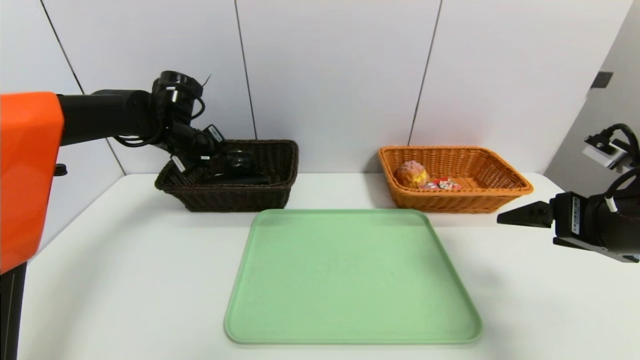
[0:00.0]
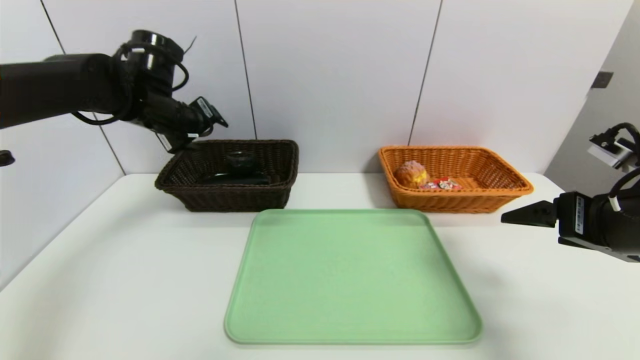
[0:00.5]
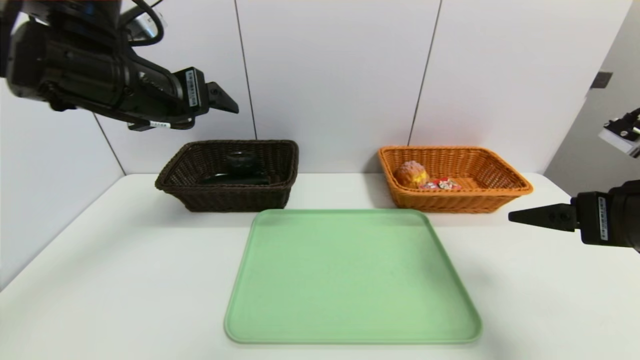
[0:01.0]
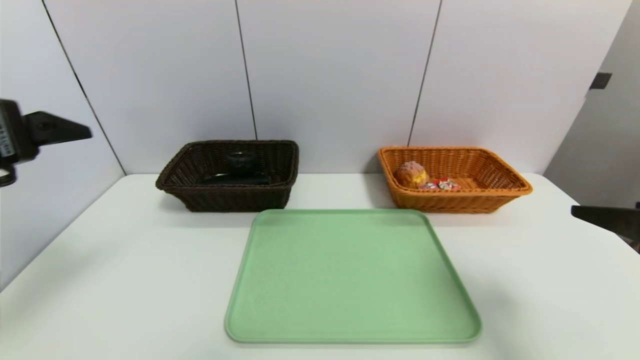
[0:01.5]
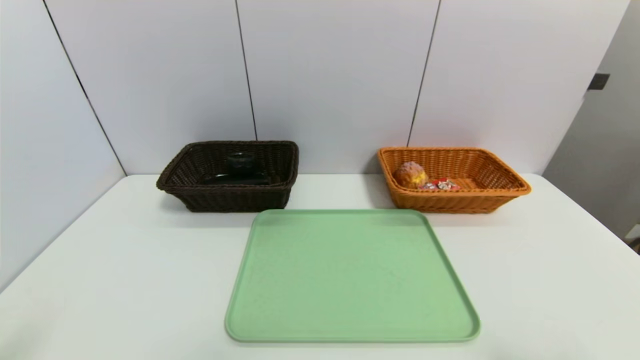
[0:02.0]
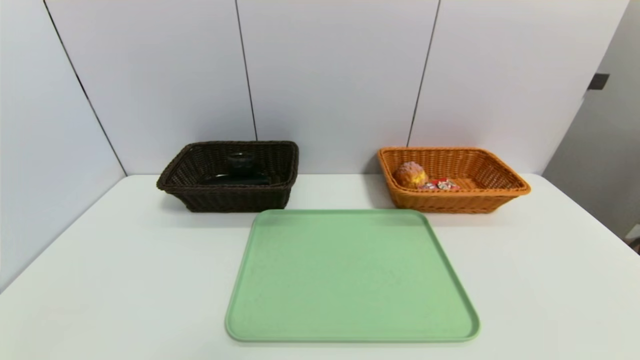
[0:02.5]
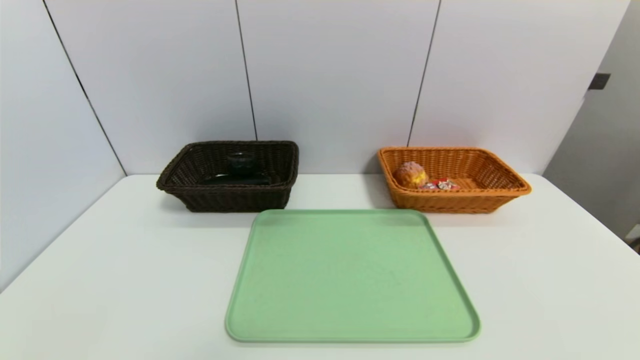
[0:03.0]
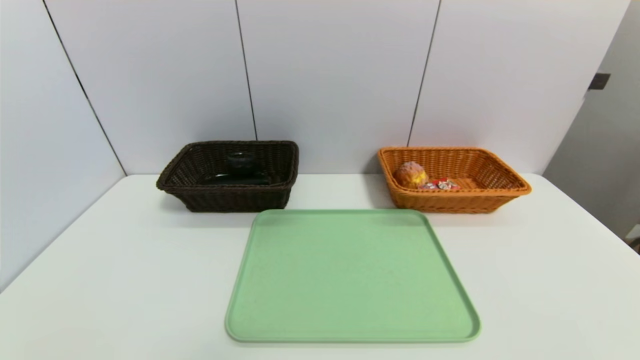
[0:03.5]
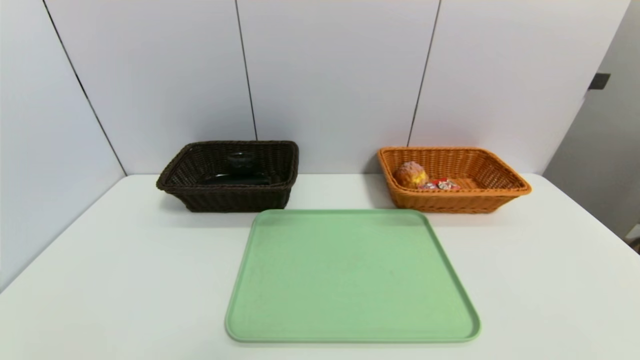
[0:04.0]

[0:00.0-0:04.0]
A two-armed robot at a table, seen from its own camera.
Task of the whole recording: place the food in the right basket with the right gripper, and place the non food items in the left basket with the left gripper.
0:00.0 to 0:02.0: The right gripper heads backward, covering some 20 cm. The left gripper goes some 40 cm backward, and opens.

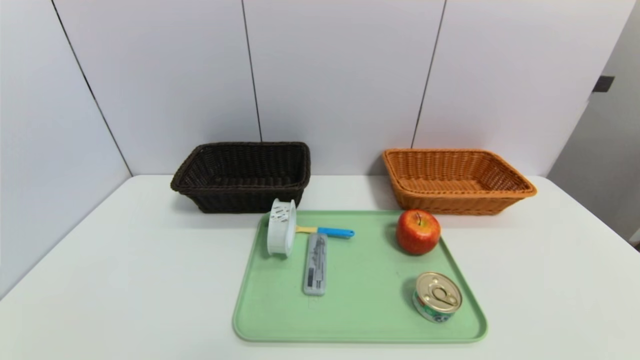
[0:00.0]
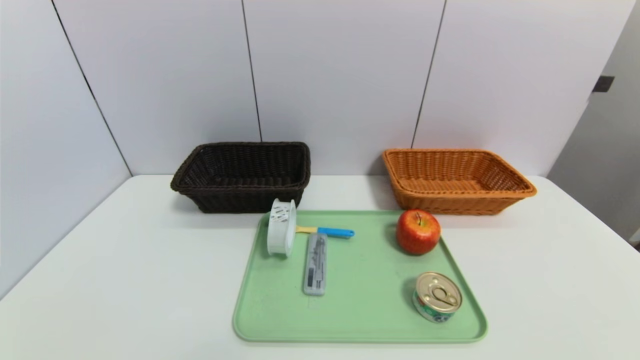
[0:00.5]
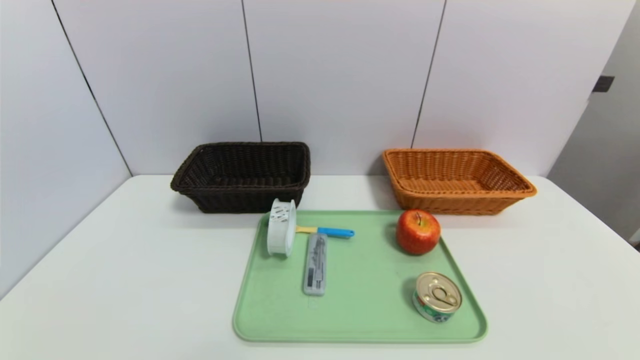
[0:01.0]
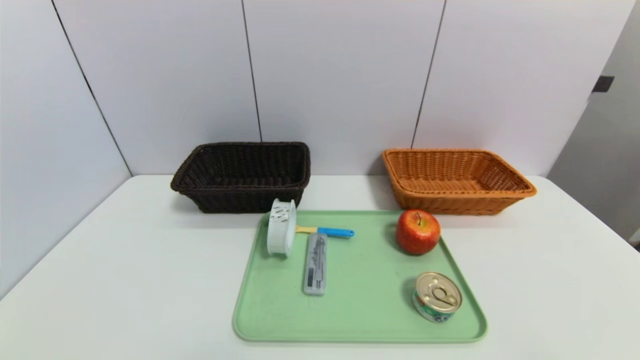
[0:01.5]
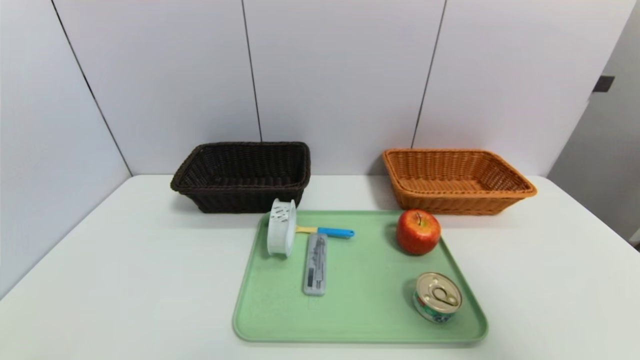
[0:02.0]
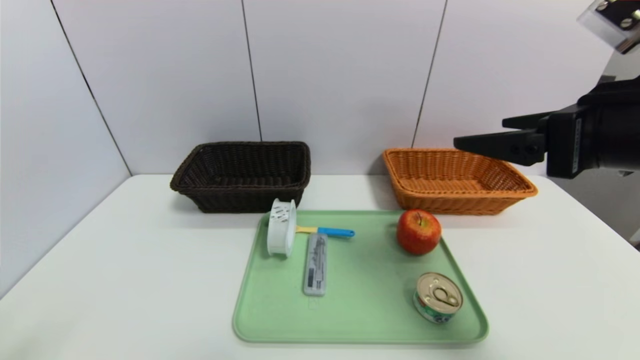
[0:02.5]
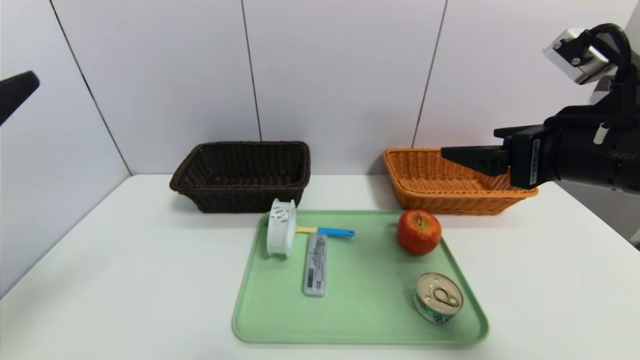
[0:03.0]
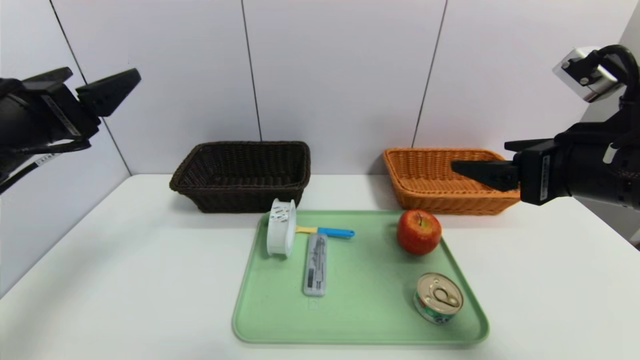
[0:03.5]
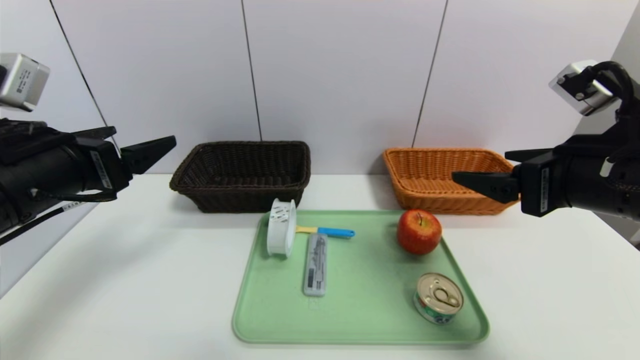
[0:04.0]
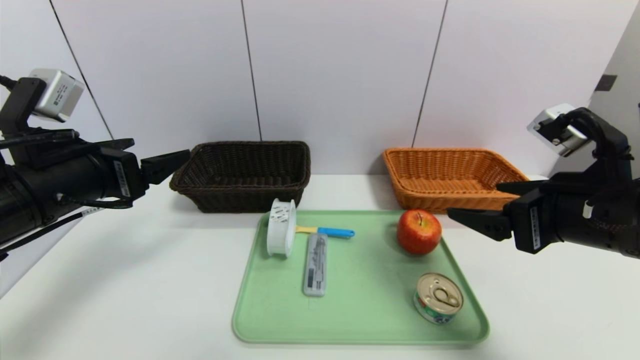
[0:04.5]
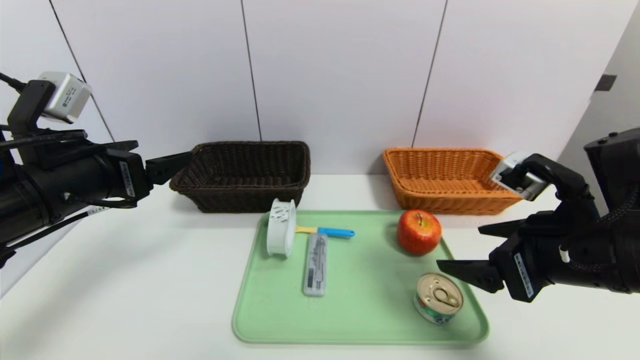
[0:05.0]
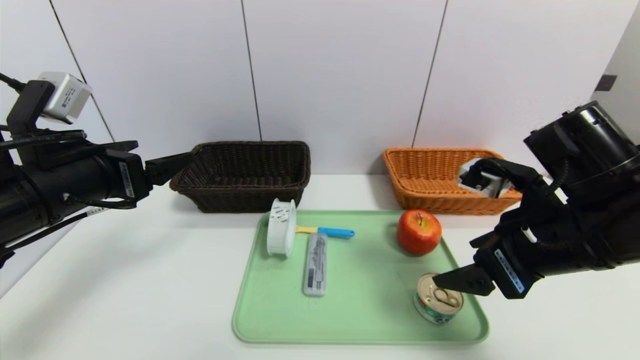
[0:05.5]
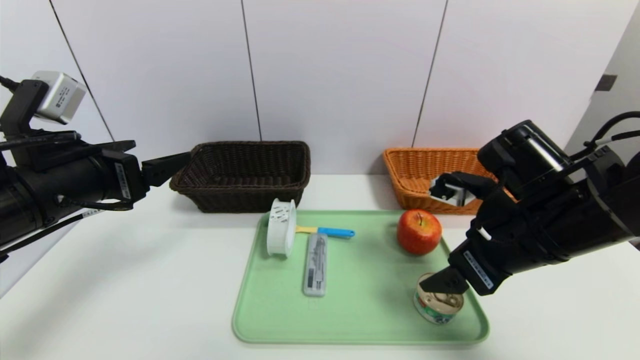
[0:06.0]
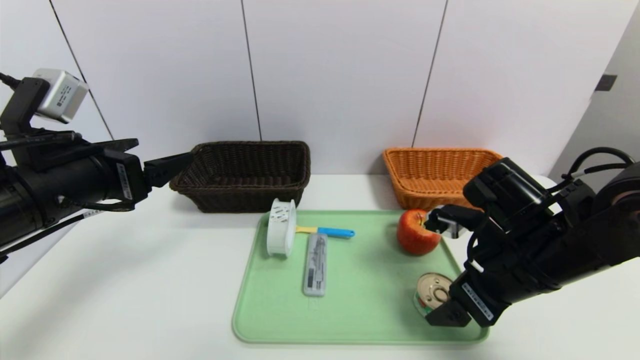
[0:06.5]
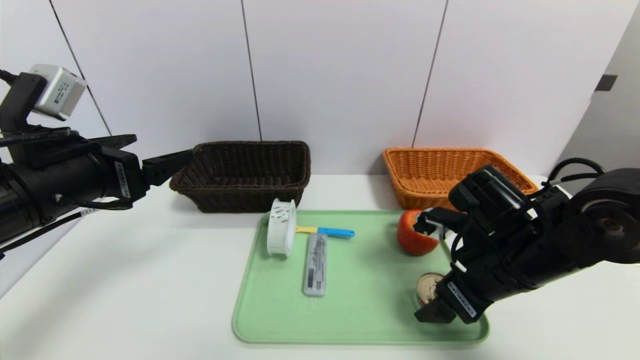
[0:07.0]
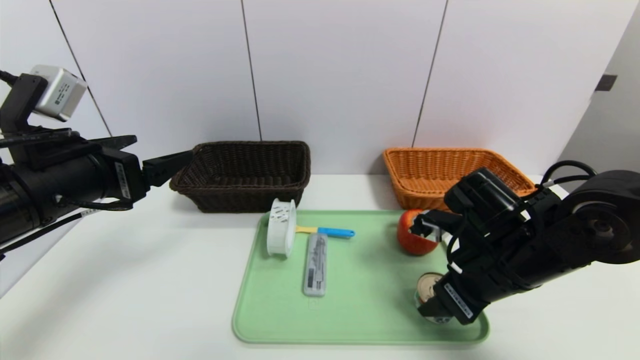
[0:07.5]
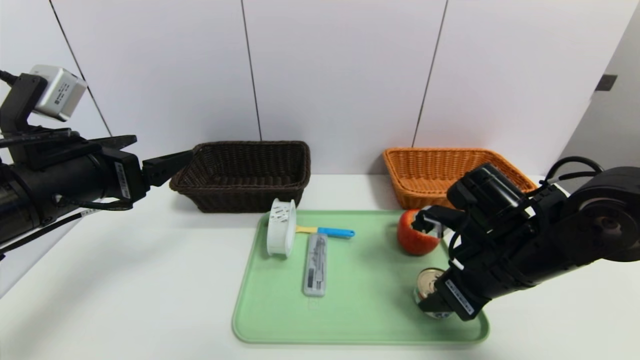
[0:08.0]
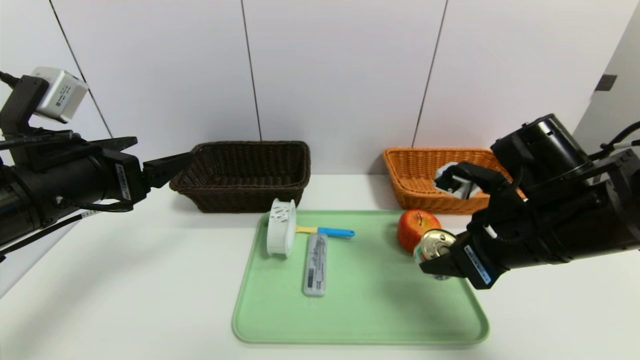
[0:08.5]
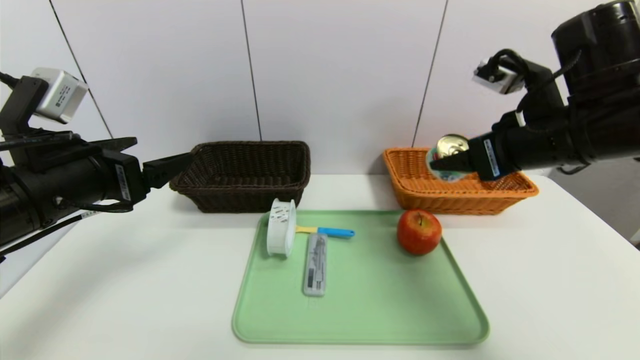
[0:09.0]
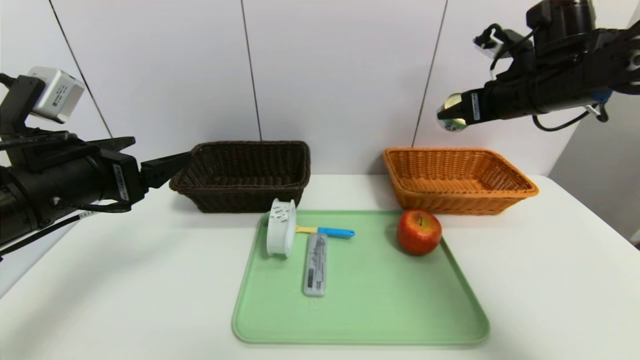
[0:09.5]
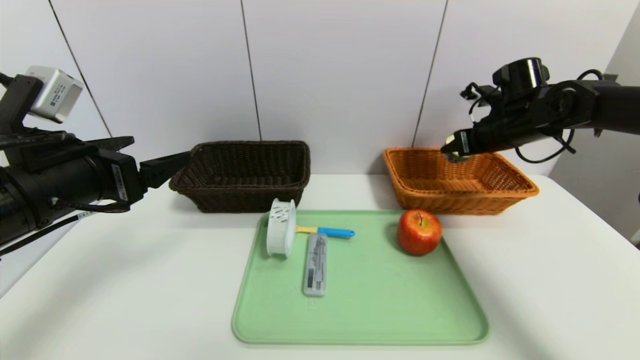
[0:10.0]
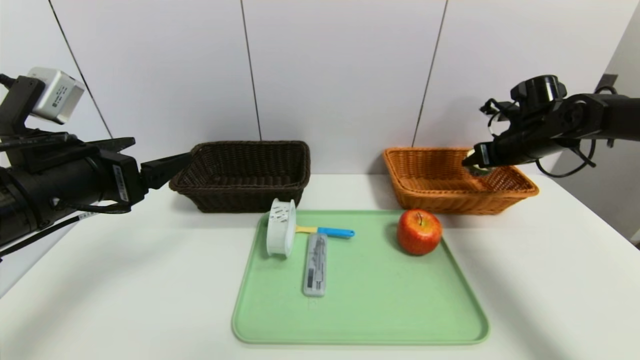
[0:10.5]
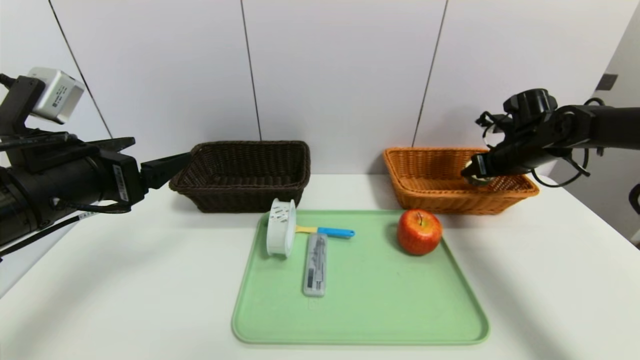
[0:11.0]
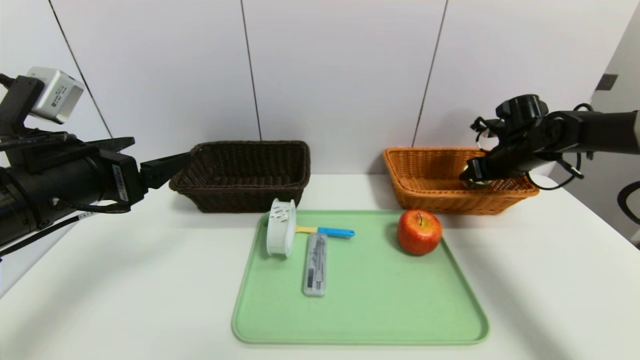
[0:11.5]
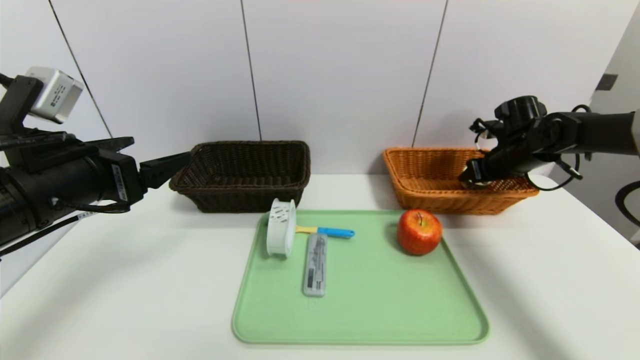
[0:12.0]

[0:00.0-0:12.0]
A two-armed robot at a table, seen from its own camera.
Task of the whole recording: place the food in the right basket with the right gripper, and place the non food items in the left basket with the left gripper.
0:00.0 to 0:02.0: The right gripper is displaced upward by some 25 cm.
0:02.0 to 0:04.0: The right gripper travels forward, to the left and downward by some 15 cm; the left gripper travels forward by roughly 20 cm.
0:04.0 to 0:06.0: The right gripper moves downward, about 5 cm.
0:06.0 to 0:08.0: The right gripper closes.
0:08.0 to 0:10.0: The right gripper goes about 20 cm forward and to the right.
0:10.0 to 0:12.0: The right gripper is displaced downward by some 5 cm.

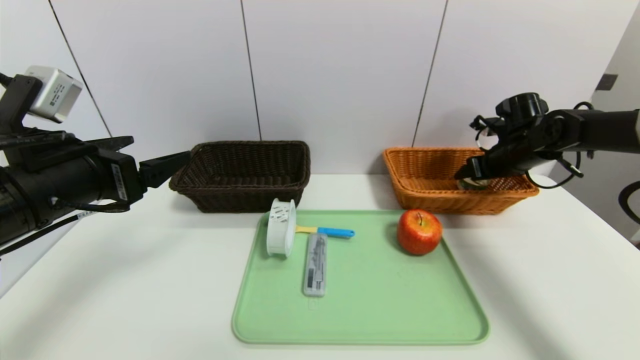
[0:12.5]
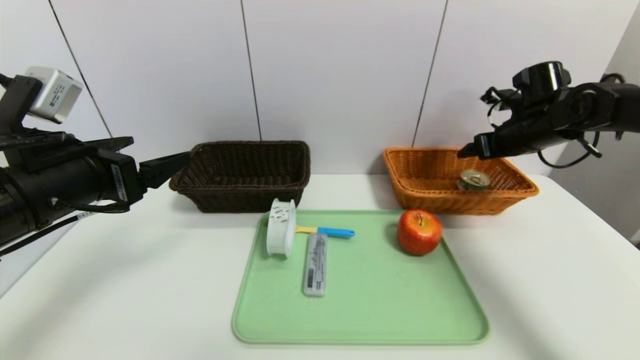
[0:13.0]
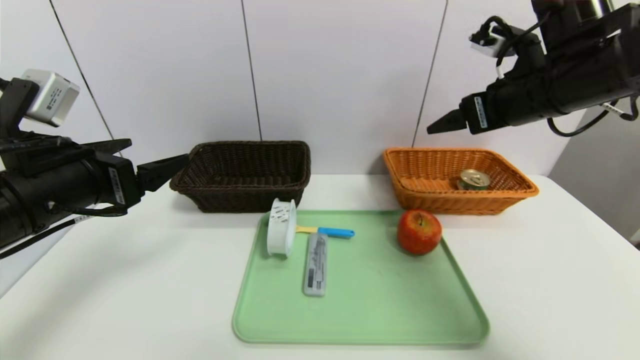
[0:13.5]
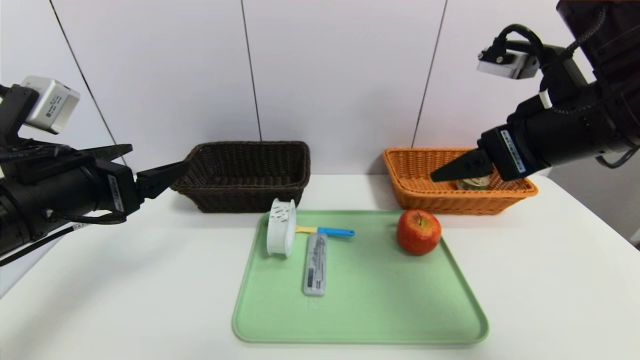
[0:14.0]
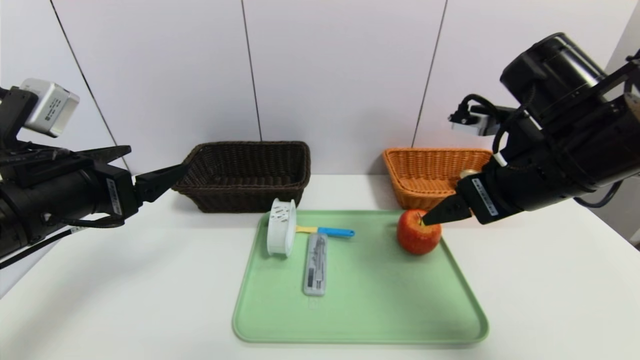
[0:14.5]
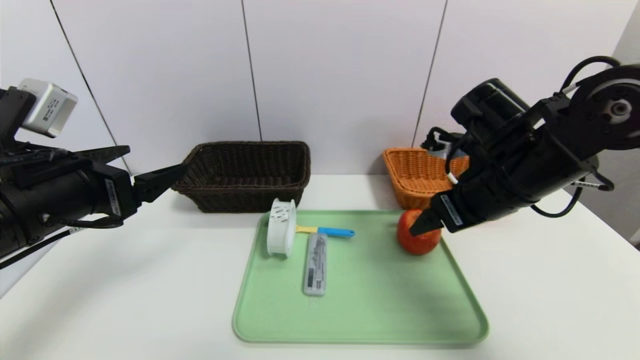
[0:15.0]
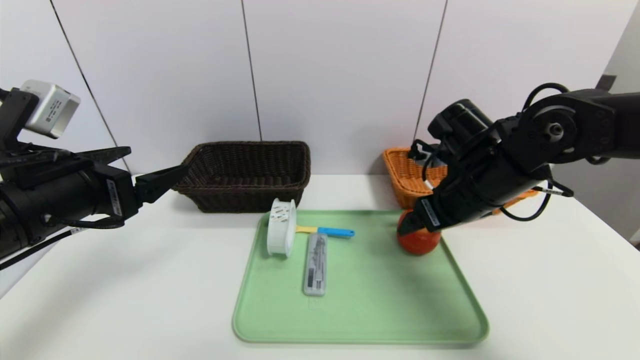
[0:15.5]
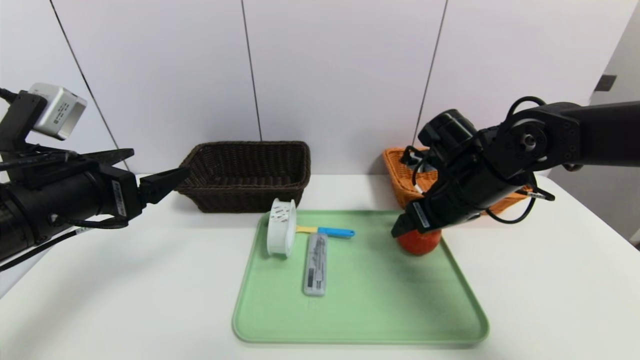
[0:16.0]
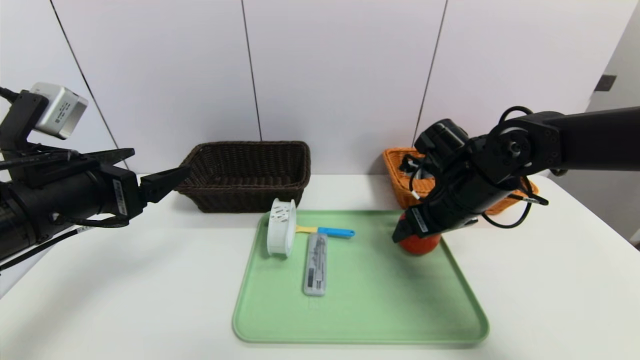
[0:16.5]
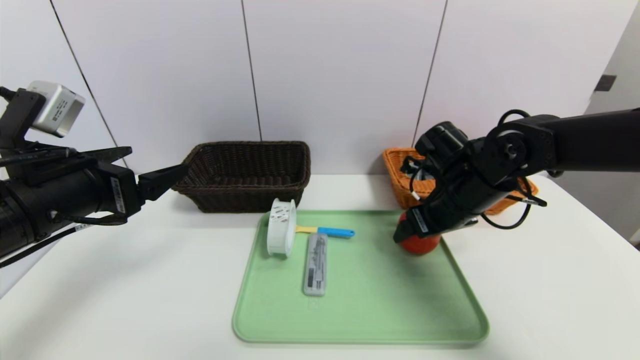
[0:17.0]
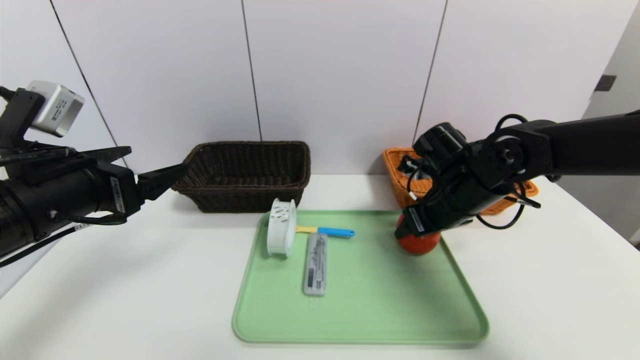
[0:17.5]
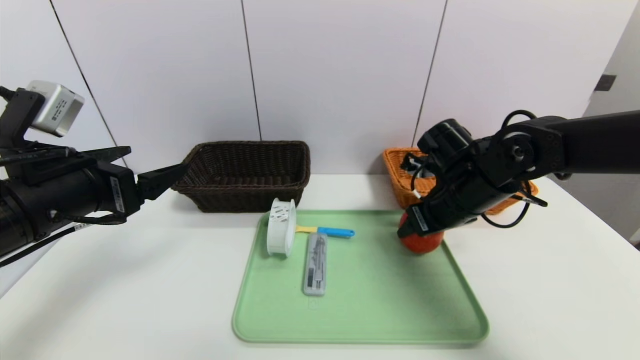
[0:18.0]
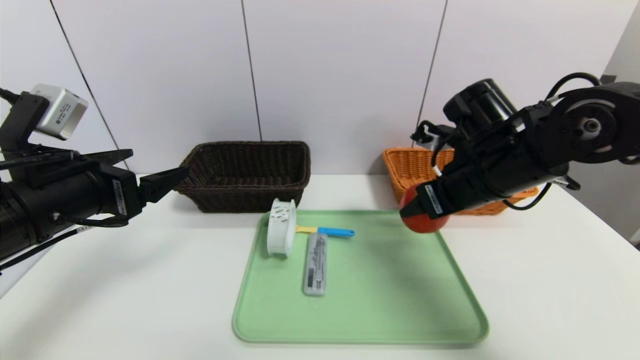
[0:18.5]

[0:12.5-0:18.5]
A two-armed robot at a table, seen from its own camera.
Task of the whole recording: place the food in the right basket with the right gripper, and place the non food items in the left basket with the left gripper.
0:12.5 to 0:14.5: The right gripper shifts some 25 cm backward, to the left and upward.
0:14.5 to 0:16.5: The right gripper travels downward and forward by about 15 cm.
0:16.5 to 0:18.5: The right gripper moves upward, about 5 cm, and closes its fingers.
